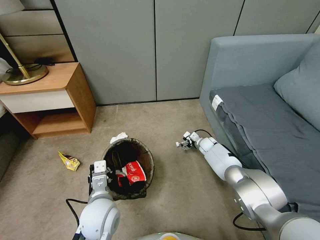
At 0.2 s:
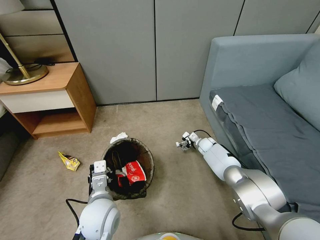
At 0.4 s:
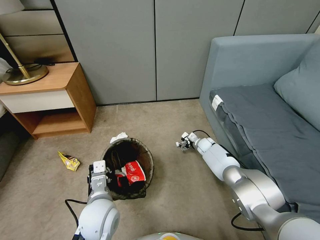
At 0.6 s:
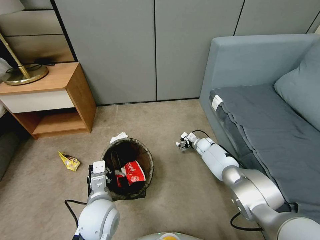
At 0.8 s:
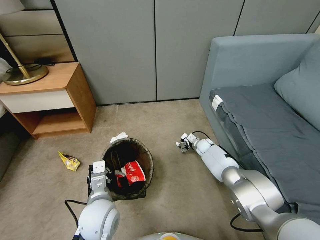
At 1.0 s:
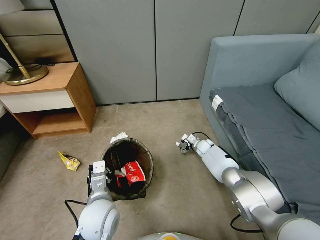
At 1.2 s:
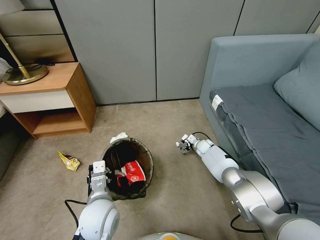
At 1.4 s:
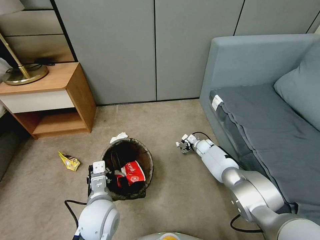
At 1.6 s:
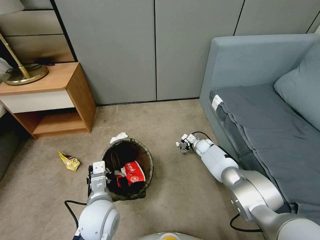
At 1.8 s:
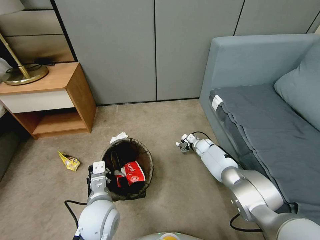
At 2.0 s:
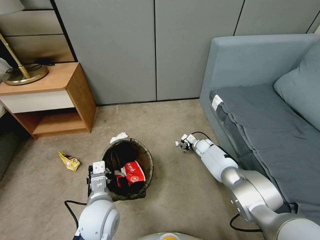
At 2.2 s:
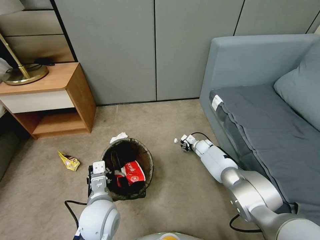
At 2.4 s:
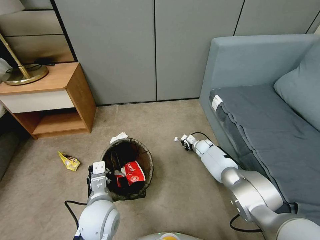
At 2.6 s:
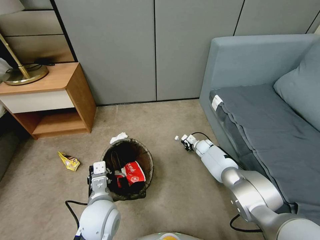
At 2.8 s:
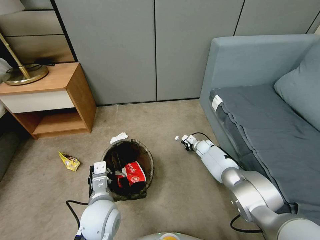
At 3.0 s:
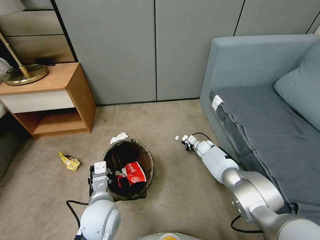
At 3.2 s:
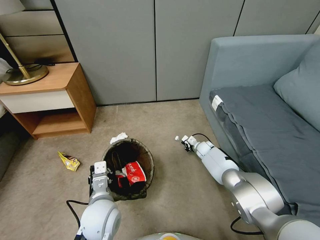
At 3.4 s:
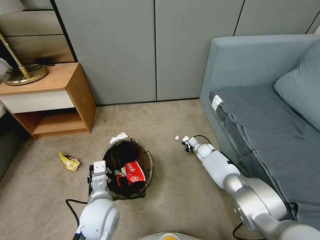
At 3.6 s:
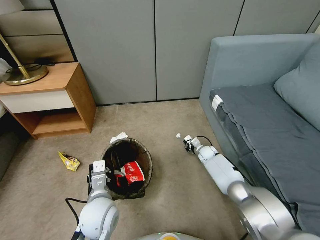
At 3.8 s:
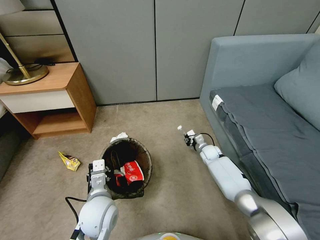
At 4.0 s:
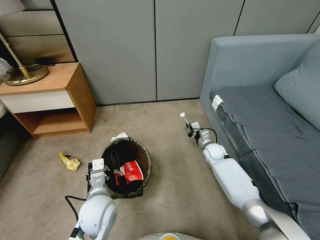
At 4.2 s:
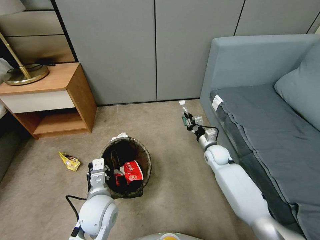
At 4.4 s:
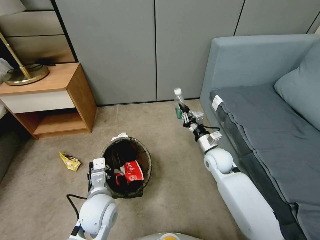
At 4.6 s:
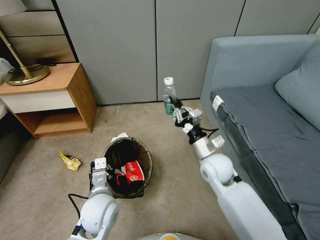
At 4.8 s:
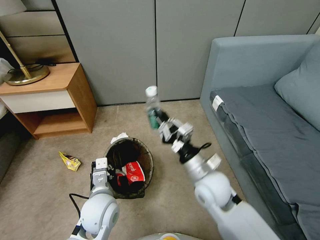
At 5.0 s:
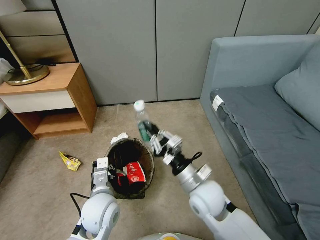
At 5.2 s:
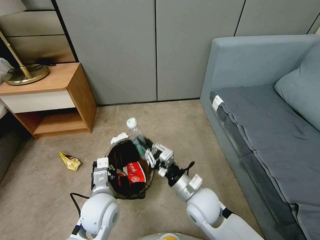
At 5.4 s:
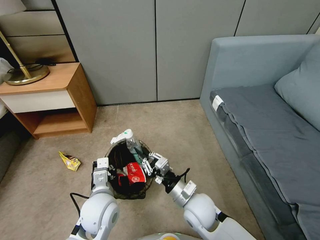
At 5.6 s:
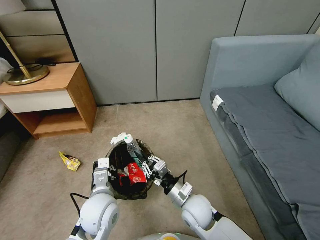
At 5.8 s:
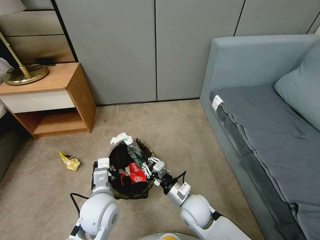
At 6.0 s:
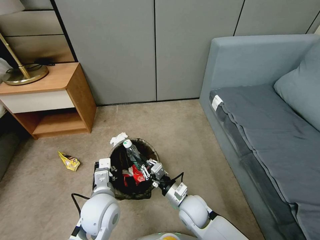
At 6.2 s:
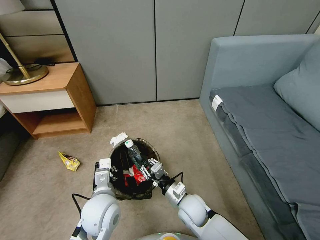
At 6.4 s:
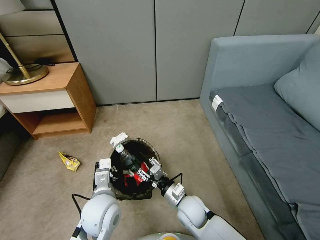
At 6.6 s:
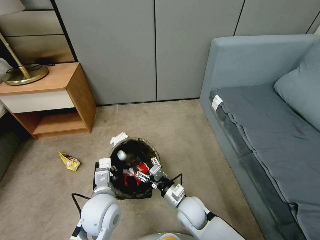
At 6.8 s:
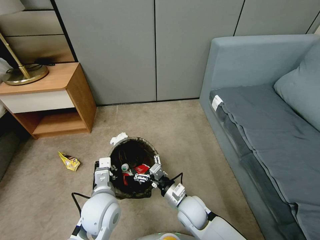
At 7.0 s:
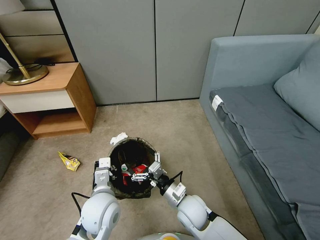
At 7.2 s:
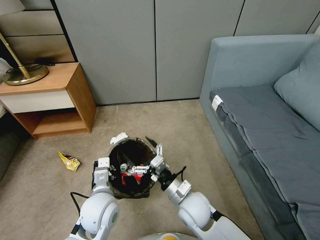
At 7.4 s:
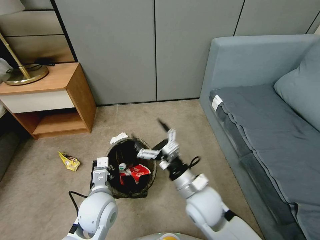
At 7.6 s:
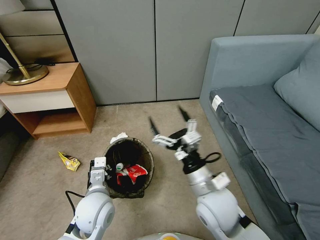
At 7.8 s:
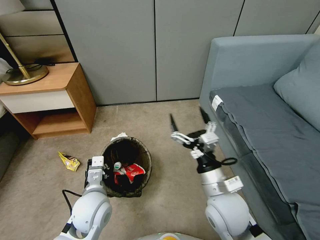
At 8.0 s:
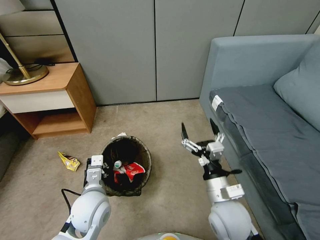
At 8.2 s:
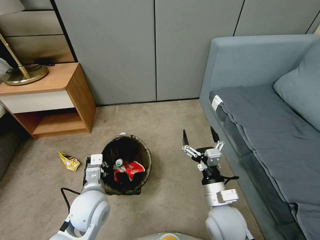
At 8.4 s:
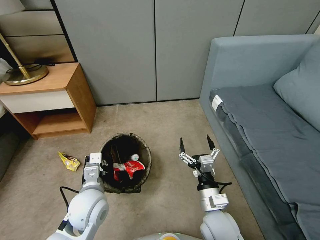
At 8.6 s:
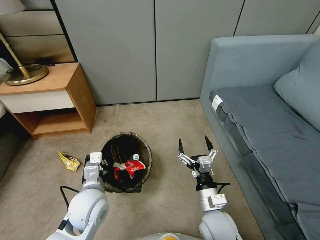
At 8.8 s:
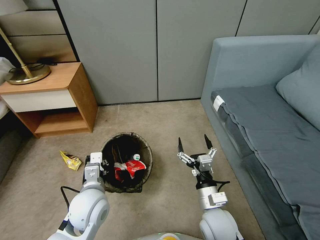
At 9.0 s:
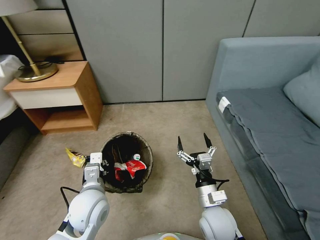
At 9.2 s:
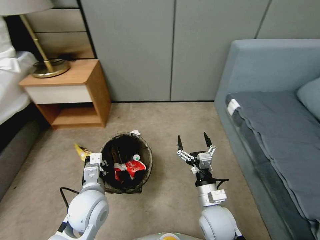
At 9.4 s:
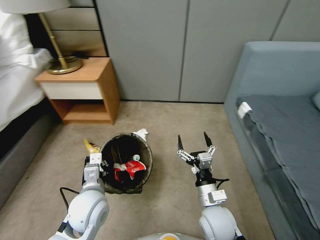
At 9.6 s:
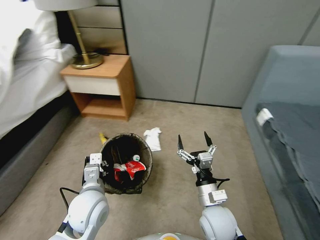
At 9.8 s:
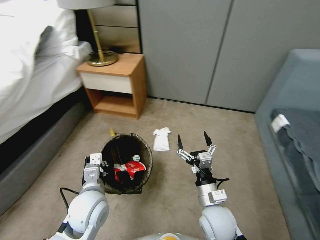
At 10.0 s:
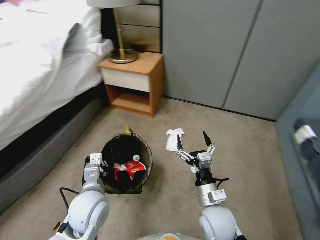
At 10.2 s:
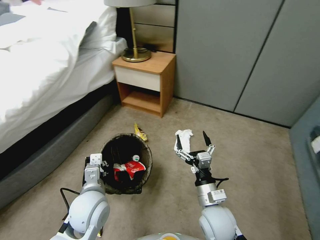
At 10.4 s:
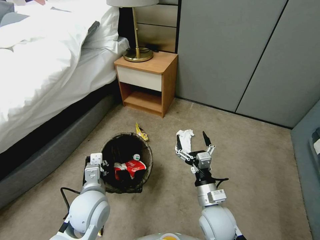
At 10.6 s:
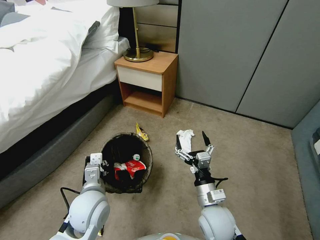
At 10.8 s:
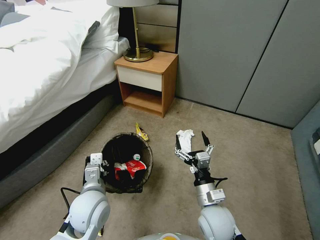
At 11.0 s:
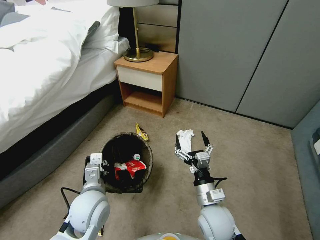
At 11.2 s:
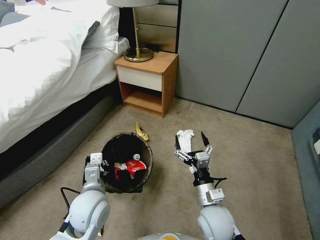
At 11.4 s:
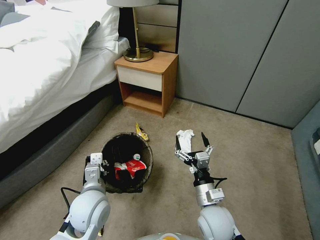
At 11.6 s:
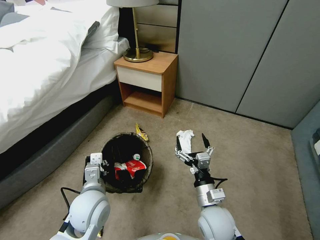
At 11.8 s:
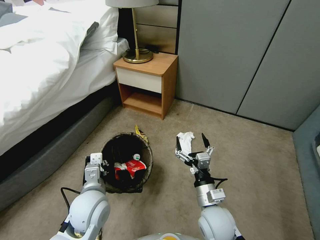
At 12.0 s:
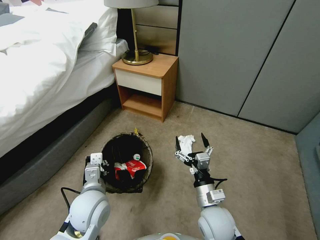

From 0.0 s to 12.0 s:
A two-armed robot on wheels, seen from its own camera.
Task of the whole recording: Pick up the trash bin, then pick up the garbage from the floor and place it into the trash bin.
From 0.0 s to 1.6 s: The grippers make only small movements.
From 1.6 s to 3.0 s: The right gripper closes its fingers.
From 3.0 s to 4.4 s: The right gripper heads upward and backward, covering roughly 20 cm.
From 4.4 s to 6.0 s: The right gripper heads backward, to the left and downward, covering roughly 20 cm.
From 6.0 s to 7.6 s: The right gripper shifts approximately 15 cm upward, and opens.
From 7.6 s to 9.0 s: The right gripper goes approximately 10 cm downward.
From 10.4 s to 12.0 s: Both grippers stay about where they are.

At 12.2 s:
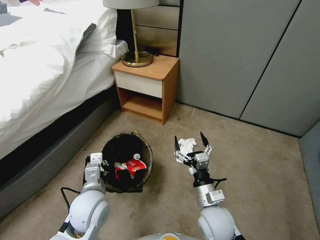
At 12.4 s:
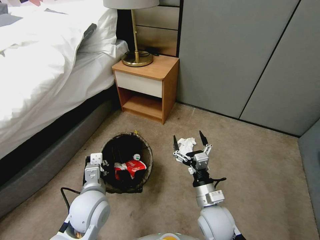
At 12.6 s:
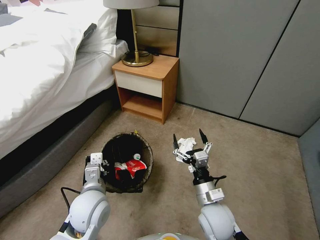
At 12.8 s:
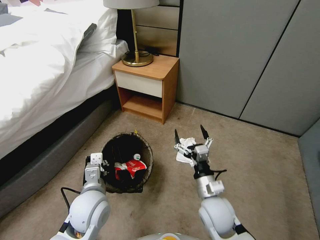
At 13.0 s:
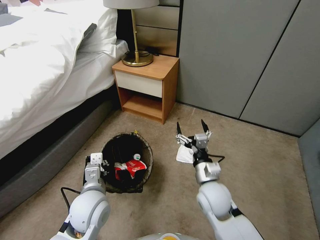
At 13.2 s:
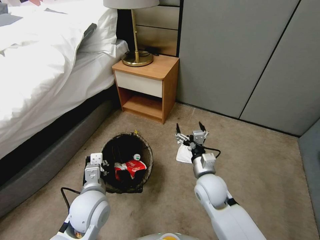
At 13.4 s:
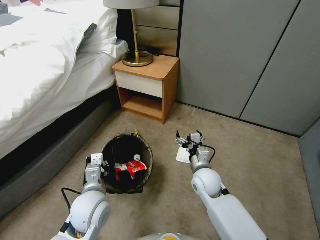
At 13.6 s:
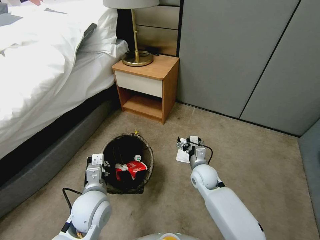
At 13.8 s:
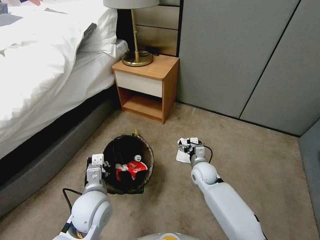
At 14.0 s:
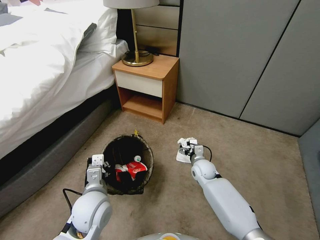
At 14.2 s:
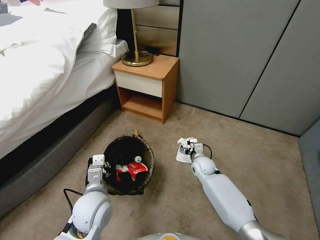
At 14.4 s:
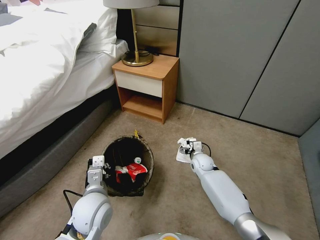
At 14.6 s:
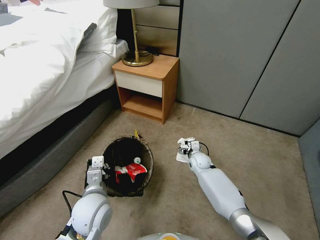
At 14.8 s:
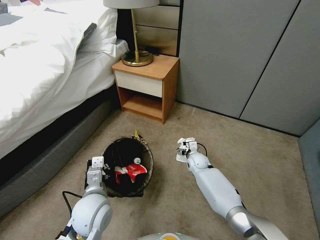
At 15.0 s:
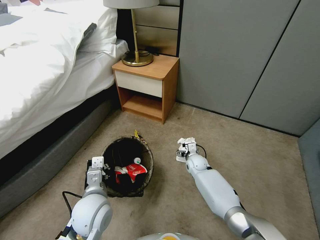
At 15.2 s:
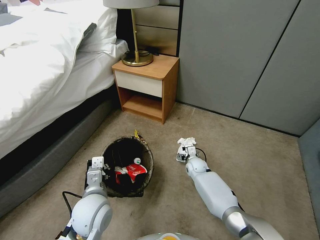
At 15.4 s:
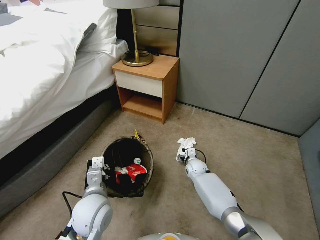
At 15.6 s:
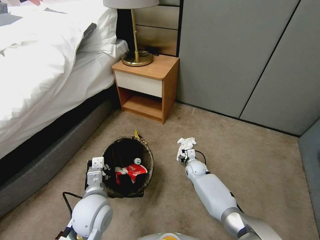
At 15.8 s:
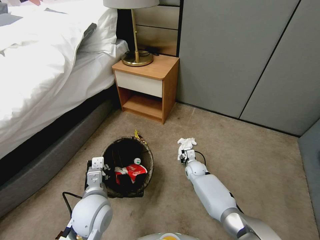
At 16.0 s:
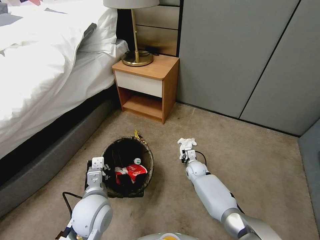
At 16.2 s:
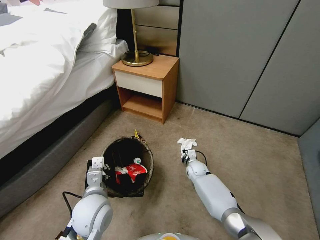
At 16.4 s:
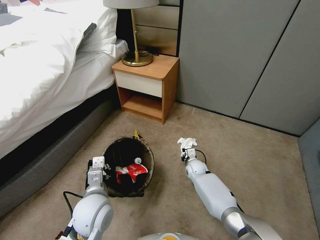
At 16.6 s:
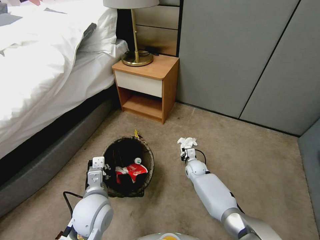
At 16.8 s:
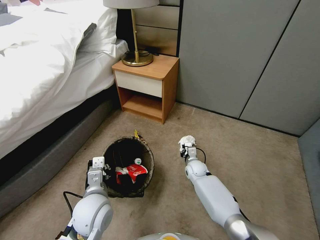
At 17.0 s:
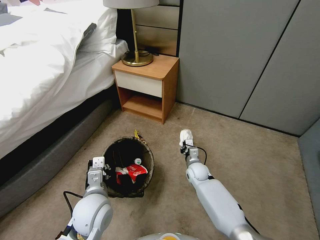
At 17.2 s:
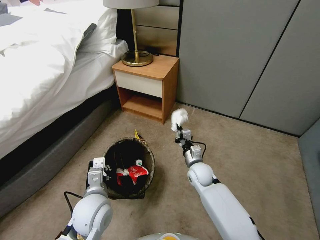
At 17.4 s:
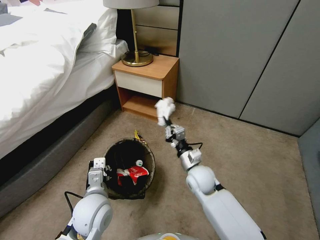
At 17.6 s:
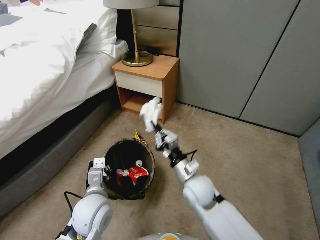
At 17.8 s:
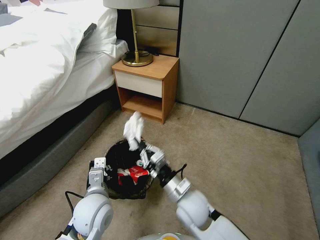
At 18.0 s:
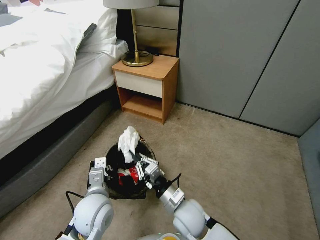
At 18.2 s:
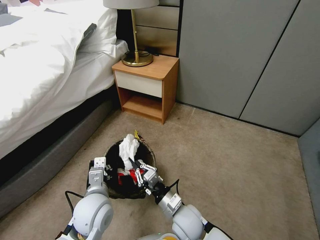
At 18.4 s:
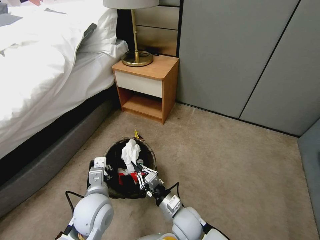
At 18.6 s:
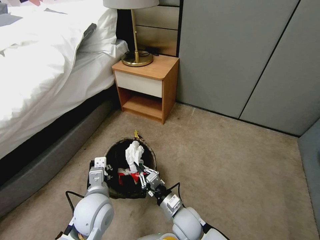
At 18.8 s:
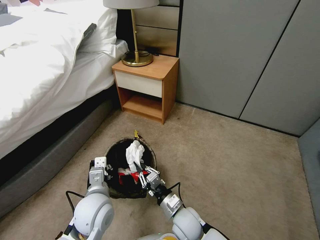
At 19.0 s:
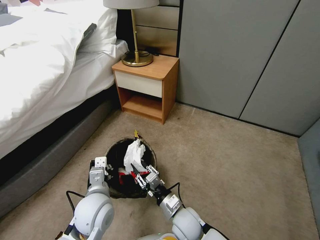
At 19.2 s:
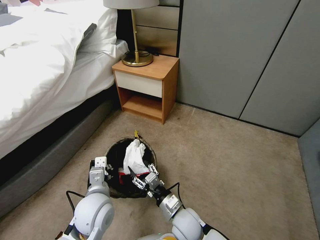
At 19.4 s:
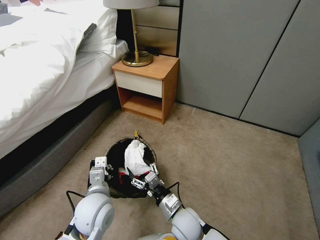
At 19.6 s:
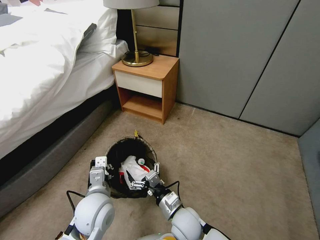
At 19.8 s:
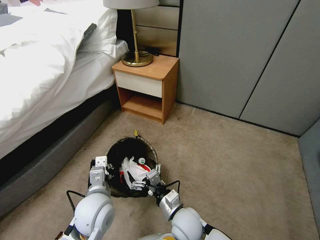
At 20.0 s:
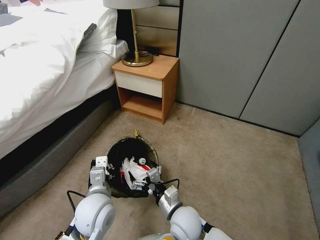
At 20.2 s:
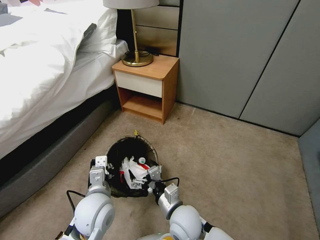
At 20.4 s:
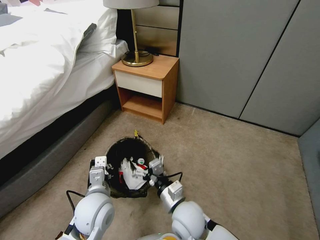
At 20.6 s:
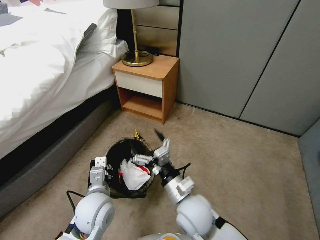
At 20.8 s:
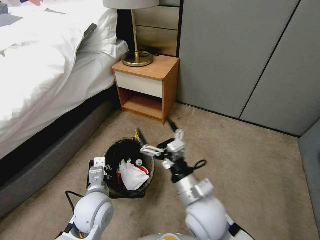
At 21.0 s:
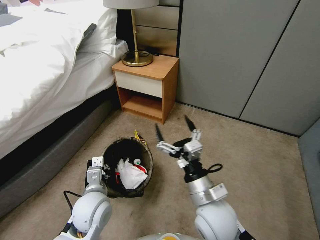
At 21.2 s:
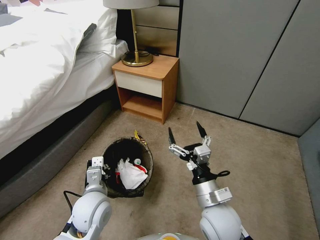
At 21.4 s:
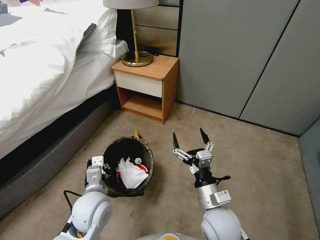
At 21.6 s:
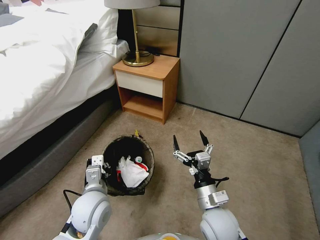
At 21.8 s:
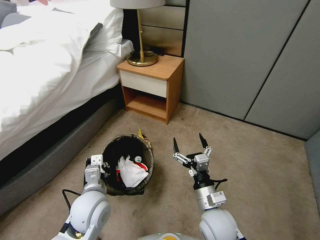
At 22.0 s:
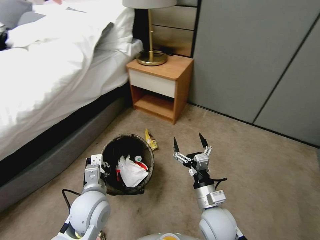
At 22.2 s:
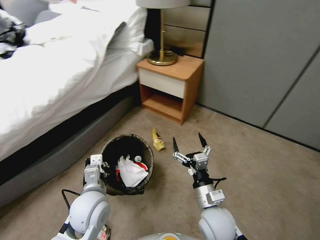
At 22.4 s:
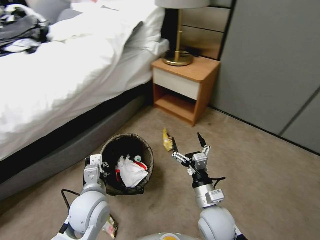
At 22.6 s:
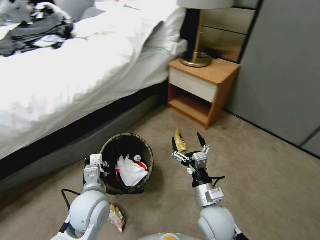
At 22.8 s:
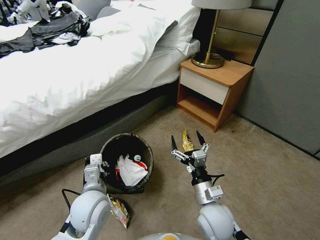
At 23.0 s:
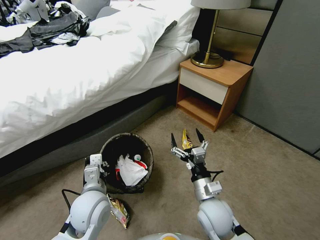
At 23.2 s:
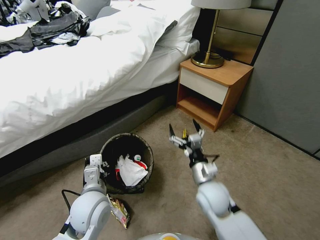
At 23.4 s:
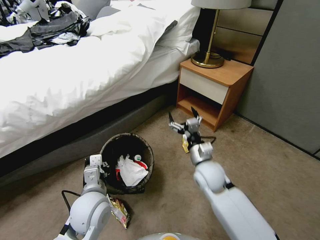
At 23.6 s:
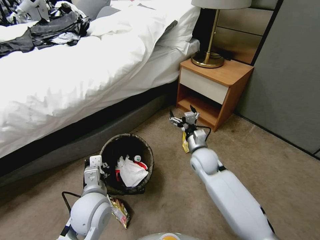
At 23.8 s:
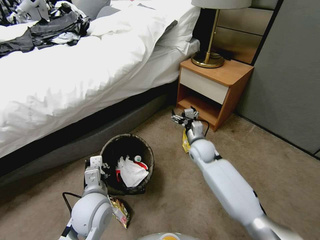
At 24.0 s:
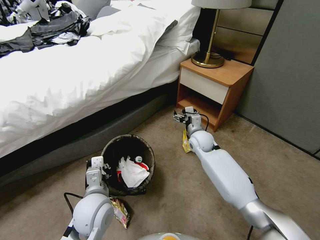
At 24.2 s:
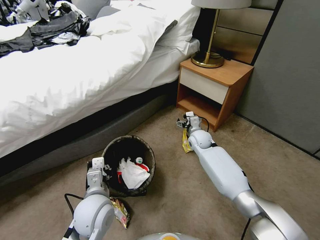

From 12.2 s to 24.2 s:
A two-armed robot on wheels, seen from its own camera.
Task of the whole recording: Pick up the trash bin, then pick up the garbage from the floor and place it into the trash bin.
From 12.2 s to 13.8 s: The right gripper goes some 20 cm forward and downward.
From 13.8 s to 15.2 s: The right gripper is displaced downward and forward by some 10 cm.
From 15.2 s to 16.6 s: The right gripper closes.
From 16.6 s to 18.2 s: The right gripper is displaced backward and upward by roughly 25 cm.
From 18.2 s to 19.8 s: The right gripper opens.
From 19.8 s to 21.2 s: The right gripper heads upward and to the right, covering some 15 cm.
From 21.2 s to 22.6 s: The right gripper heads downward, covering roughly 5 cm.
From 22.6 s to 24.2 s: The right gripper goes roughly 30 cm forward.
